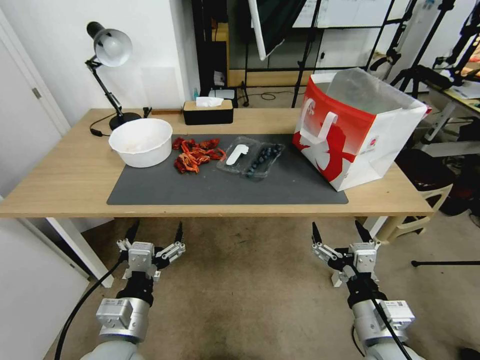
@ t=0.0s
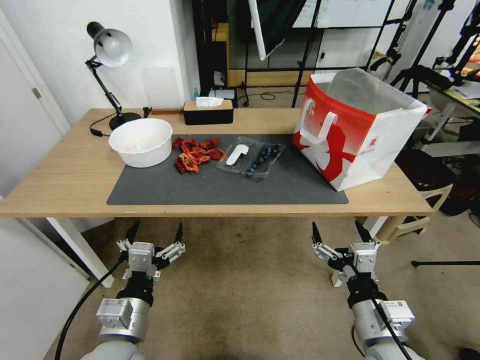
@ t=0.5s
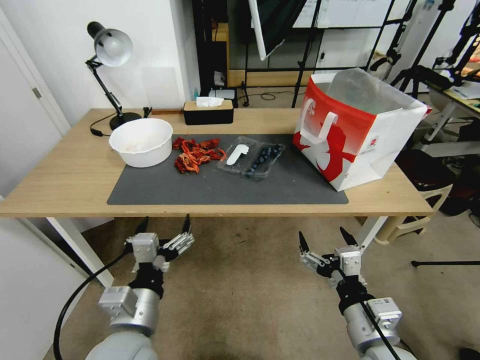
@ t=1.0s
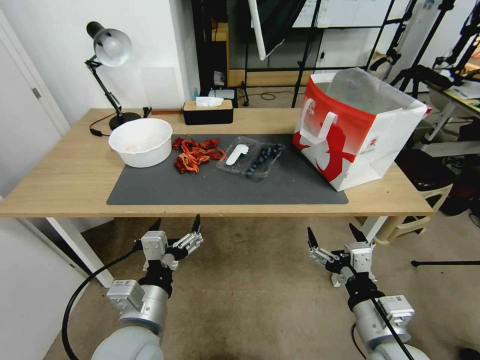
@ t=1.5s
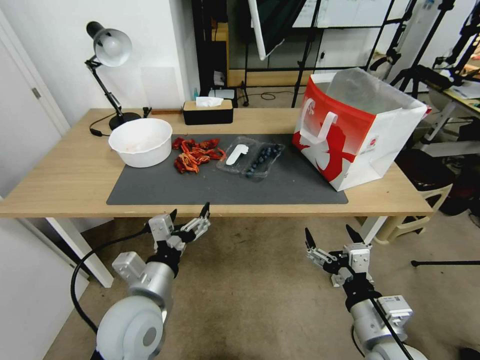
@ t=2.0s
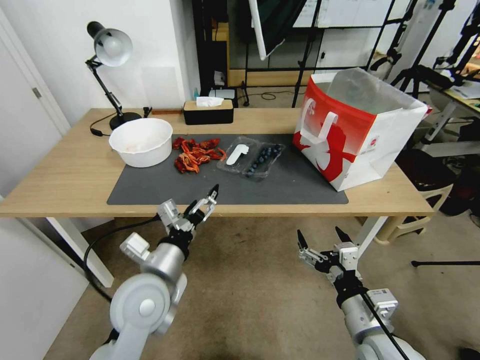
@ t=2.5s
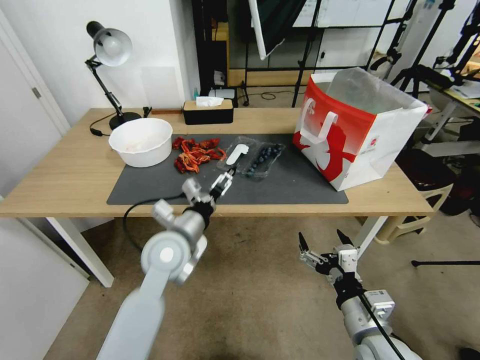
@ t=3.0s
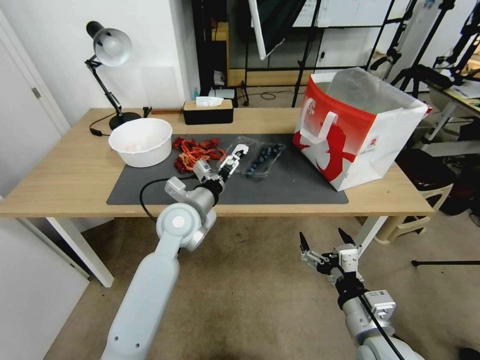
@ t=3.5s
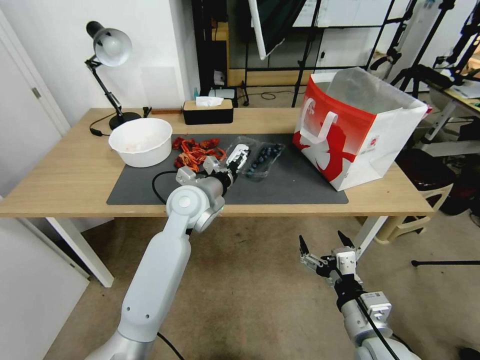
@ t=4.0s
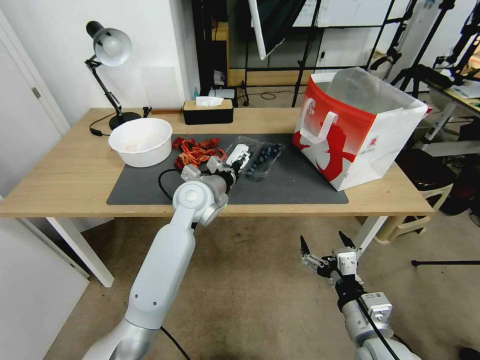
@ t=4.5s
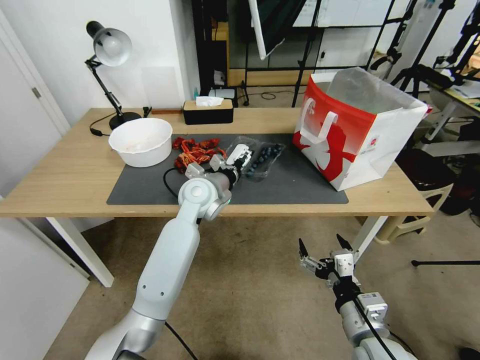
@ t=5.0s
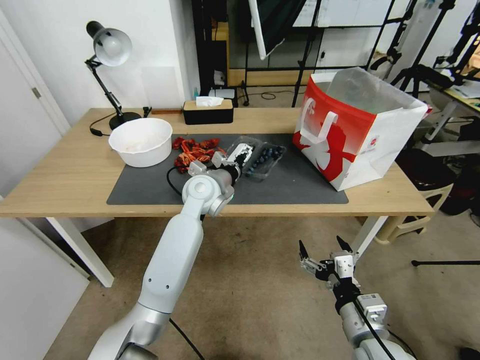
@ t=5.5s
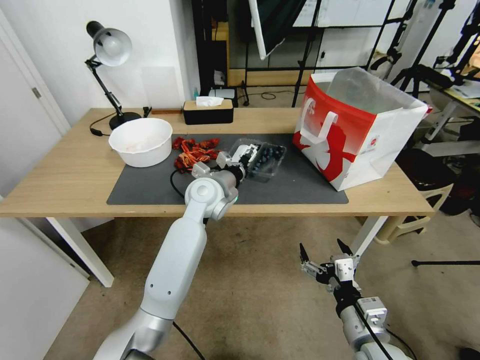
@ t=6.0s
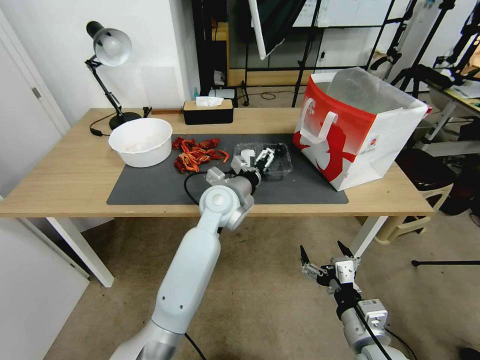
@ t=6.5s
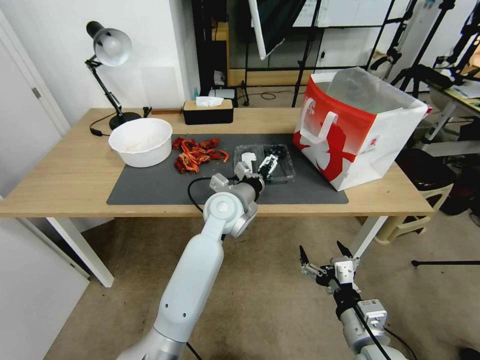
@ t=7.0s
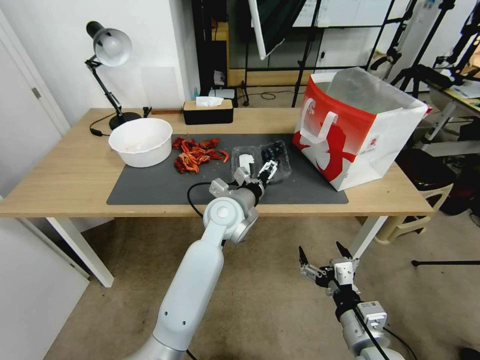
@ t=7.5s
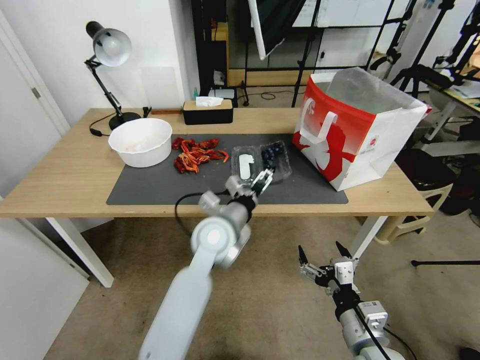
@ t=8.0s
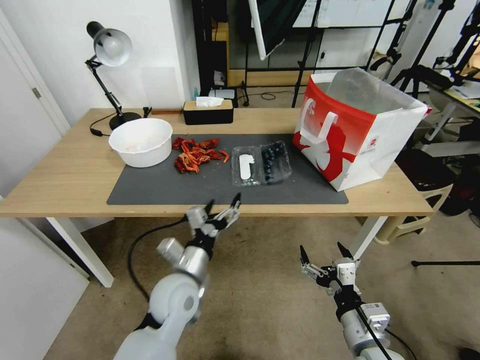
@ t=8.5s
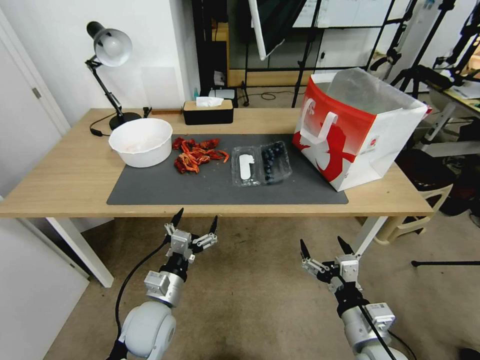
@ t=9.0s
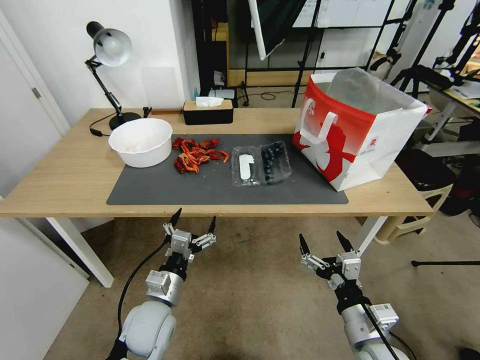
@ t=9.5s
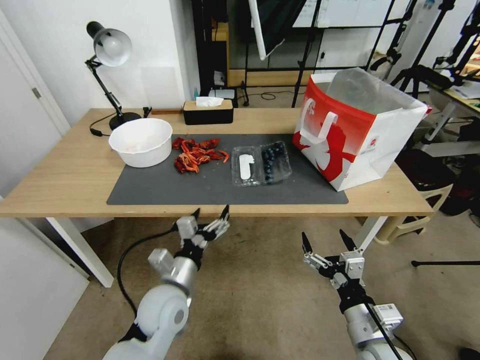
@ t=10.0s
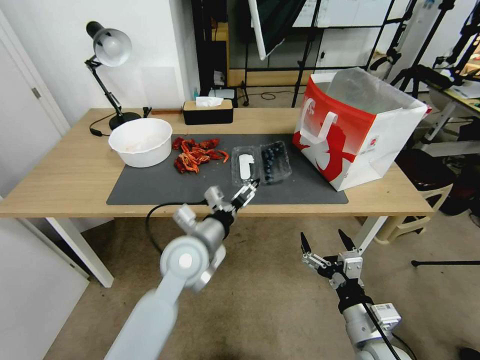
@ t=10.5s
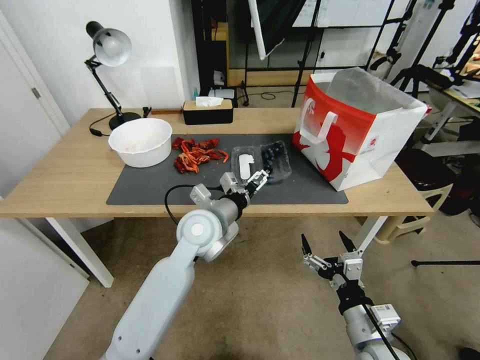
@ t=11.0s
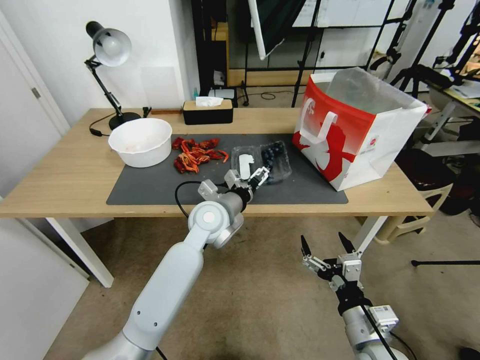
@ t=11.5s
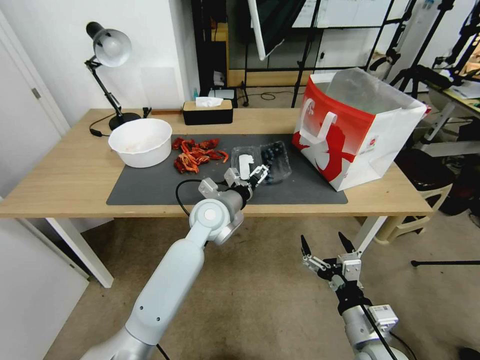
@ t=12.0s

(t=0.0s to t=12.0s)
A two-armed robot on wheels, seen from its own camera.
Task of the whole recording: Close the takeout container lid, then place the container into the takeout bag.
t=2.0s - t=4.0s: The left gripper is displaced forward by about 25 cm.
t=4.0s - t=6.0s: The left gripper moves about 5 cm.
t=6.0s - t=8.0s: The left gripper heads backward, covering approximately 10 cm.
t=8.0s - t=10.0s: The left gripper shifts some 20 cm backward, to the left and downward.
t=10.0s - t=12.0s: The left gripper is displaced forward, to the right and upward by approximately 20 cm.

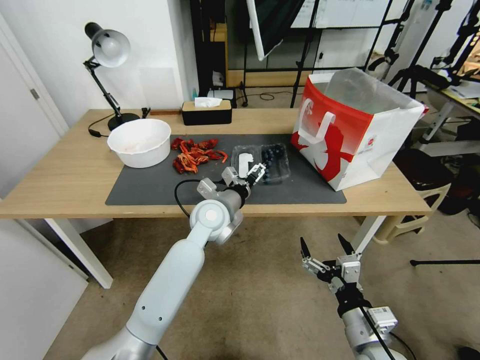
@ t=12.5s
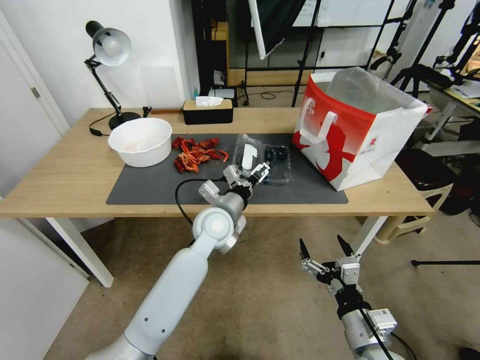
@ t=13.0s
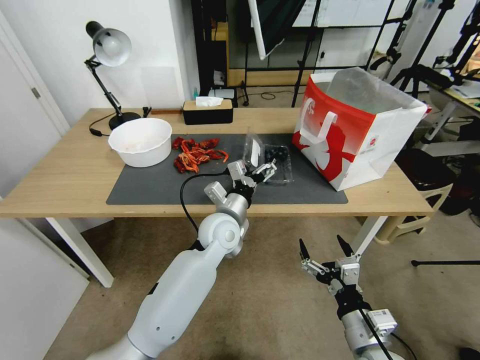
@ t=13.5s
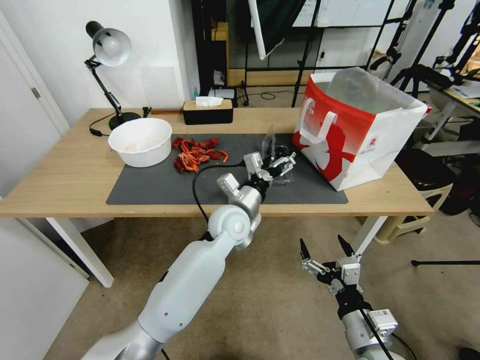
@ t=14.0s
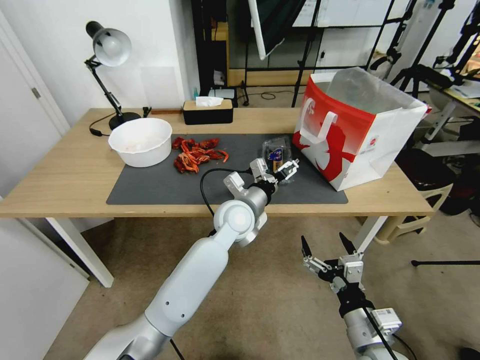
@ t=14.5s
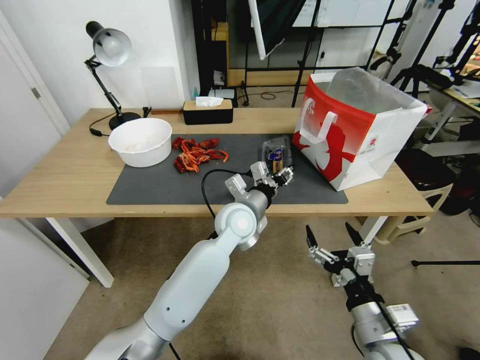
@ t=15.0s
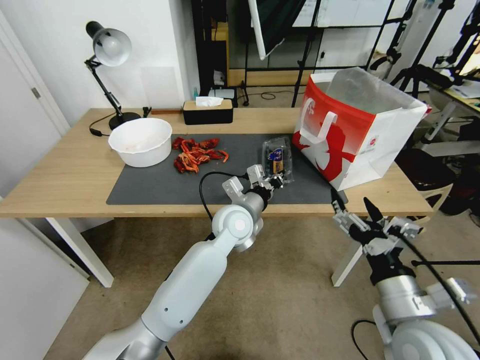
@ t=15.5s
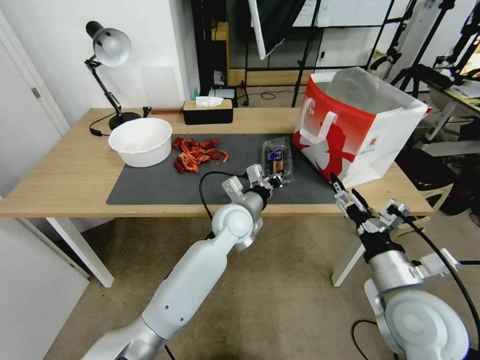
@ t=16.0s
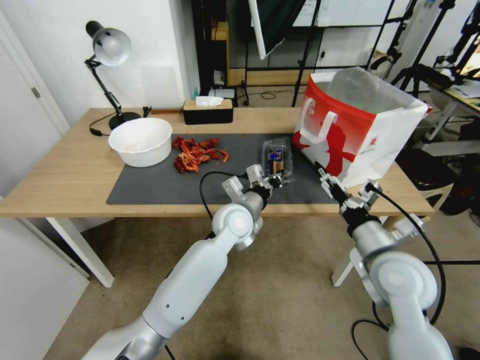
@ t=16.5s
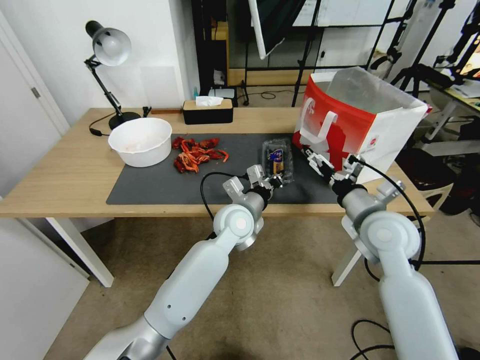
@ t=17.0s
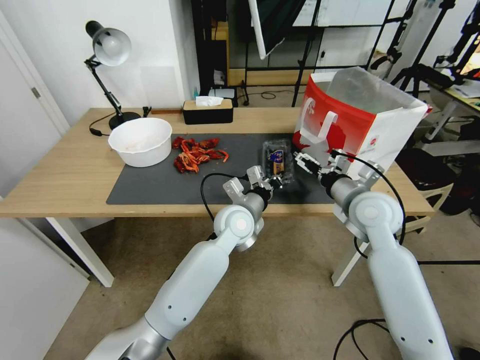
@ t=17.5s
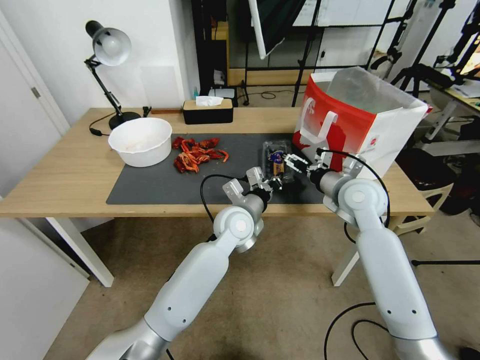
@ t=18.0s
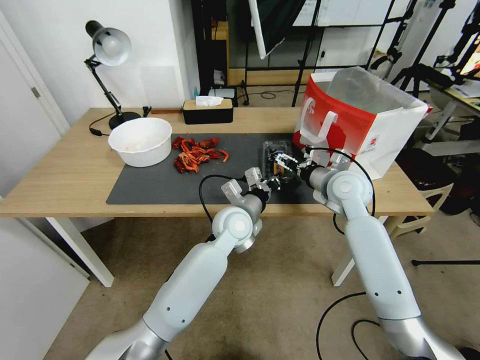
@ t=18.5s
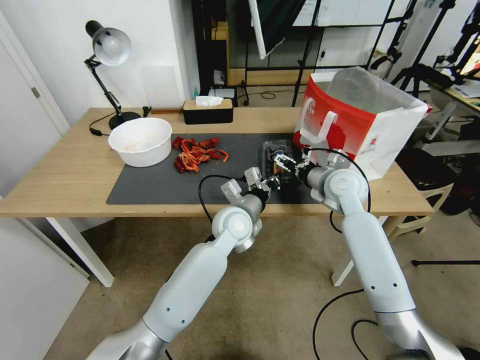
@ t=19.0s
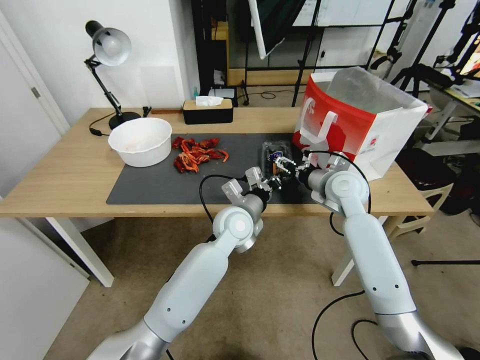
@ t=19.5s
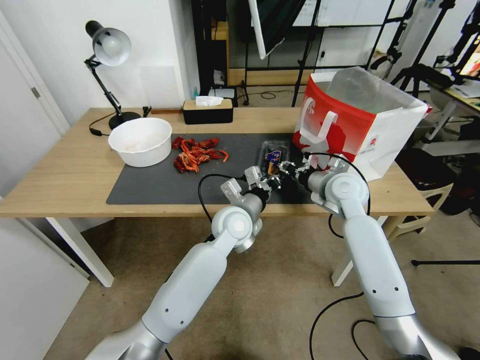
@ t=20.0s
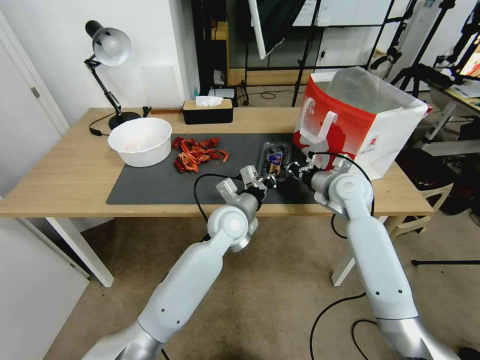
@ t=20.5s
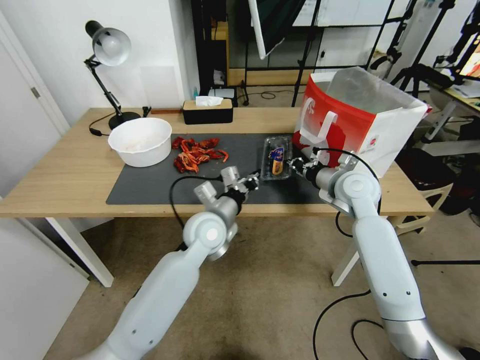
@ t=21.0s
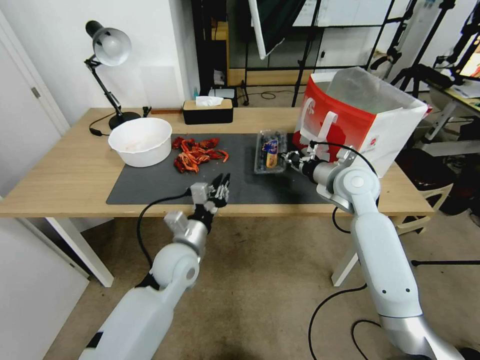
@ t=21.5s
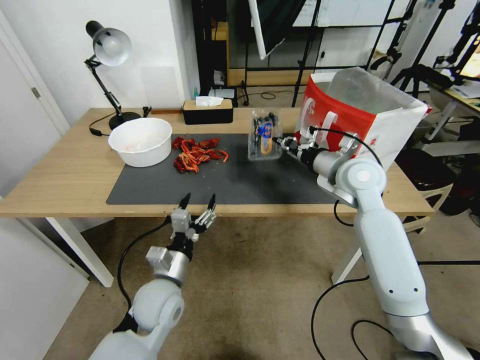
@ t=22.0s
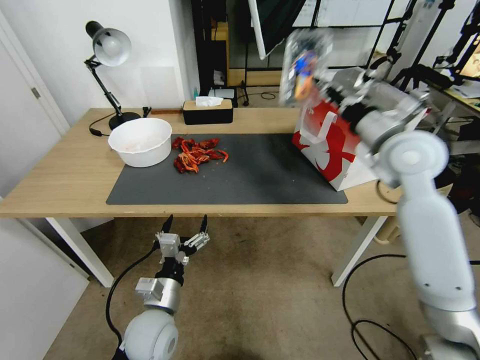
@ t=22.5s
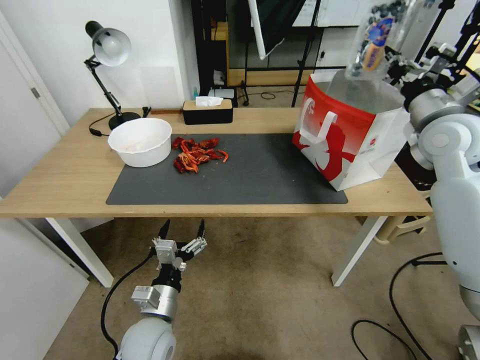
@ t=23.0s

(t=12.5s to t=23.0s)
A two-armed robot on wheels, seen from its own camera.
Task of the whole recording: Close the takeout container lid, then place the container into the takeout bag.
t=12.5s - t=14.5s: The left gripper shifts some 5 cm to the right.
t=14.5s - t=16.5s: The right gripper is displaced forward and upward by some 15 cm. Meanwhile the left gripper closes up.
t=16.5s - t=19.0s: The right gripper is displaced forward by roughly 20 cm.
t=19.0s - t=21.0s: The right gripper closes up; the left gripper shifts approximately 5 cm to the left.
t=21.0s - t=23.0s: The right gripper is displaced upward and to the right by some 20 cm. Meanwhile the left gripper heads backward, downward and to the left, covering some 25 cm, and opens its fingers.

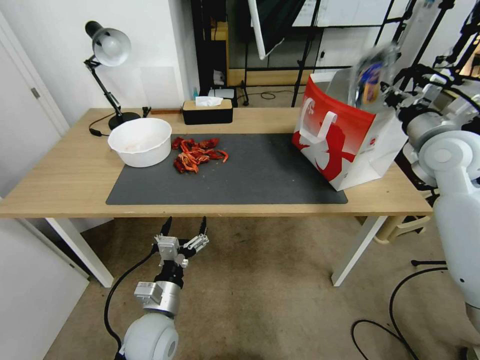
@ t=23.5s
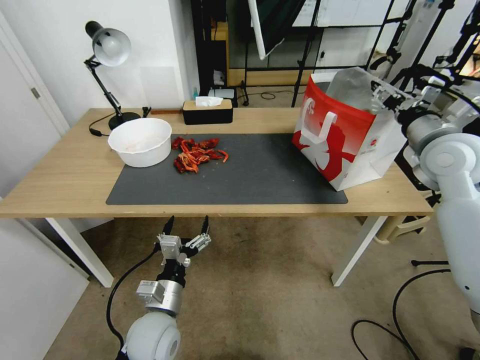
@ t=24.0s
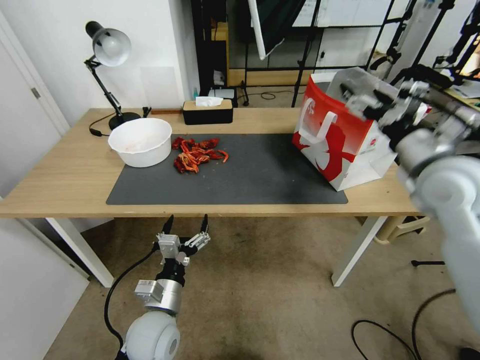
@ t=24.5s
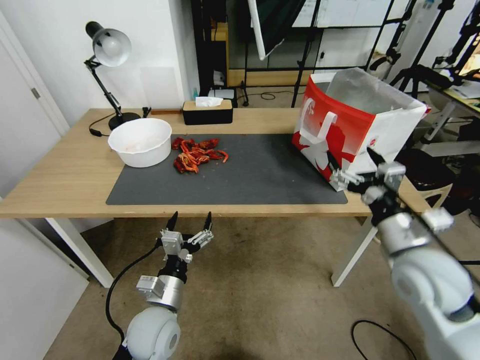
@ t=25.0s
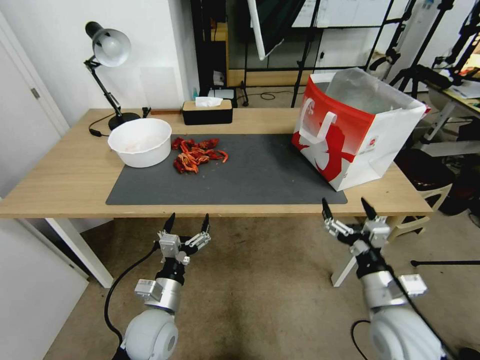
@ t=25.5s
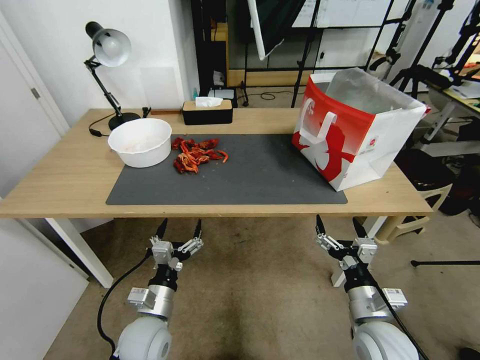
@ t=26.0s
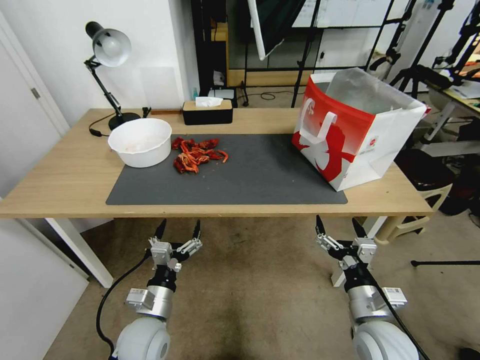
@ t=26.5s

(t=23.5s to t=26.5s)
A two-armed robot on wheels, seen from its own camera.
Task of the whole recording: Close the takeout container lid, then place the container into the takeout bag.
t=23.5s - t=25.0s: The right gripper is displaced backward, downward and to the left by roughly 20 cm, and opens its fingers.
t=25.0s - t=26.5s: The right gripper heads downward and backward, covering about 20 cm.
